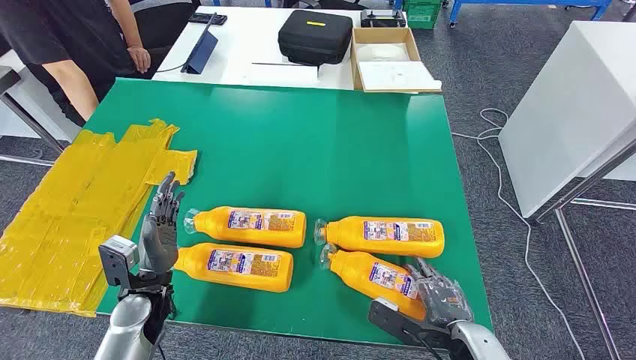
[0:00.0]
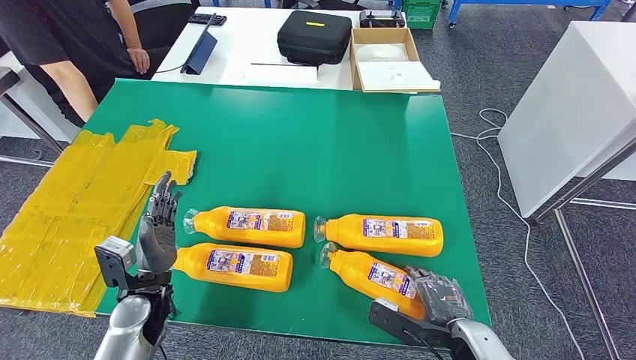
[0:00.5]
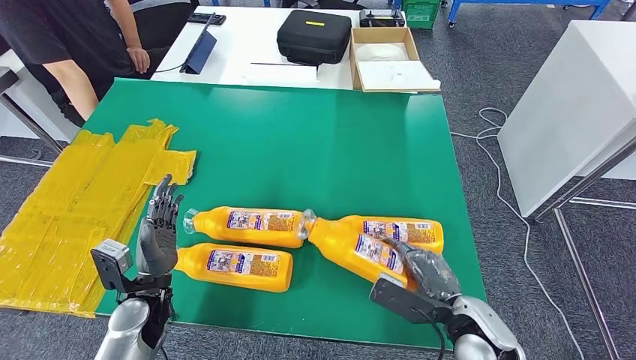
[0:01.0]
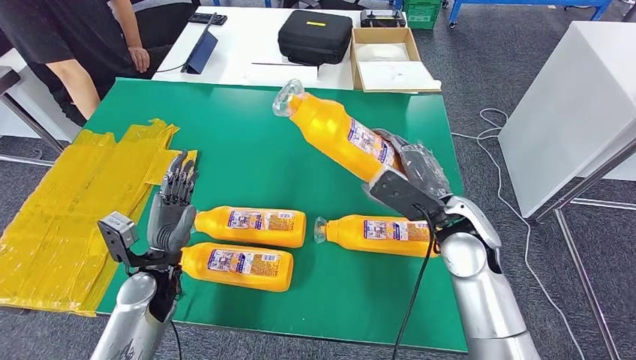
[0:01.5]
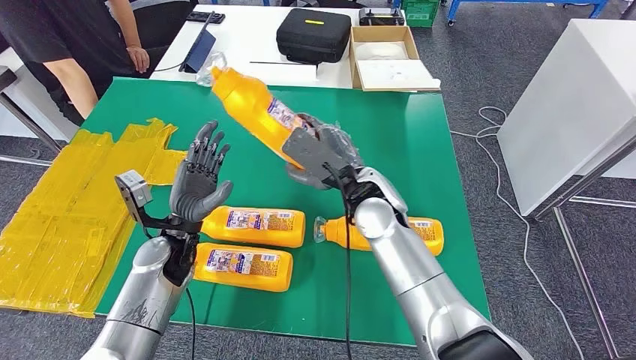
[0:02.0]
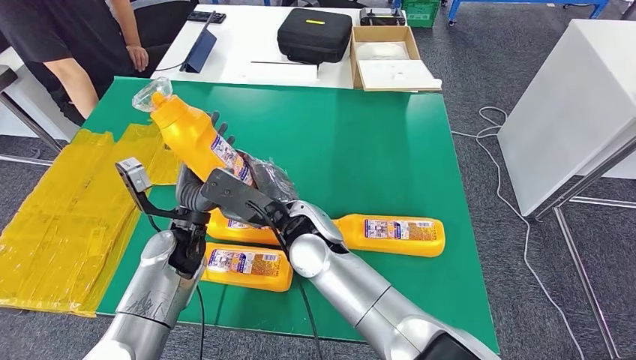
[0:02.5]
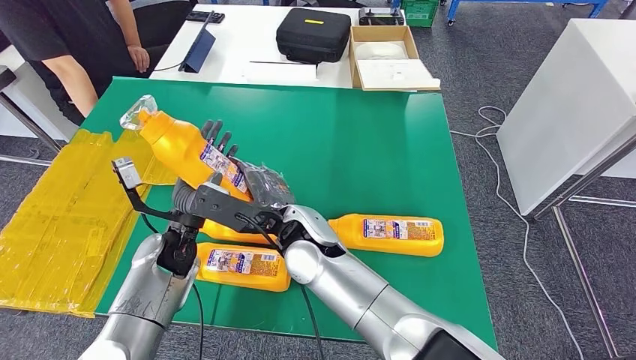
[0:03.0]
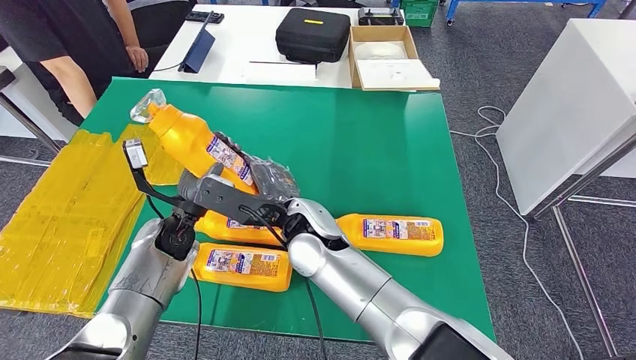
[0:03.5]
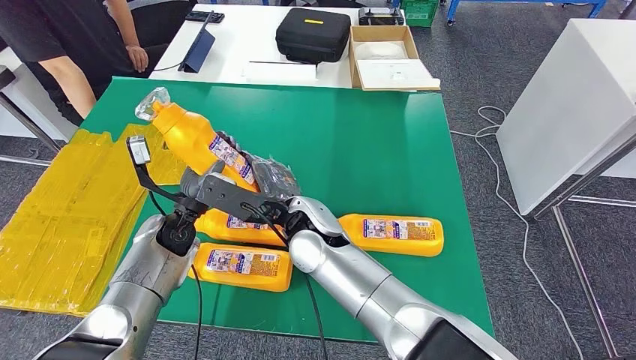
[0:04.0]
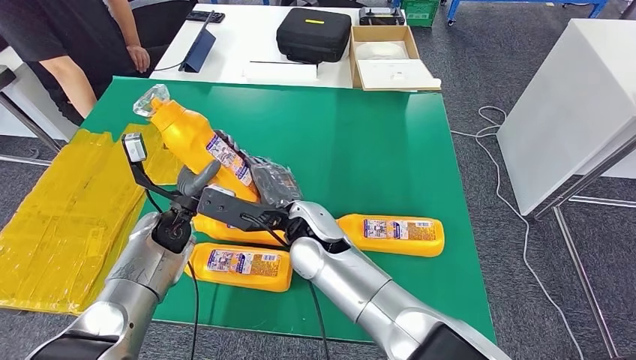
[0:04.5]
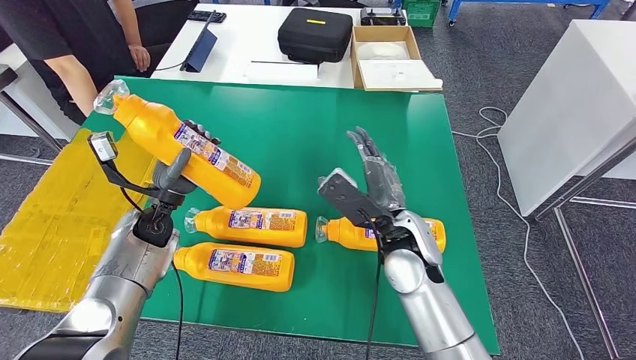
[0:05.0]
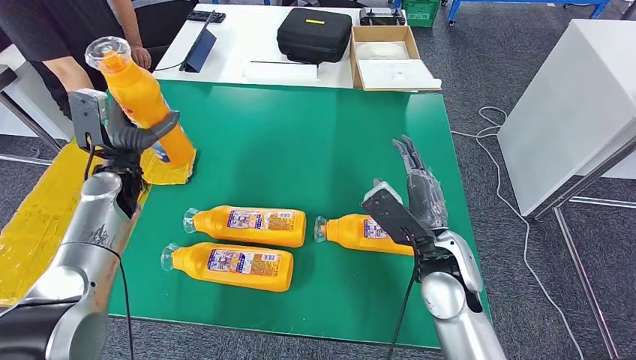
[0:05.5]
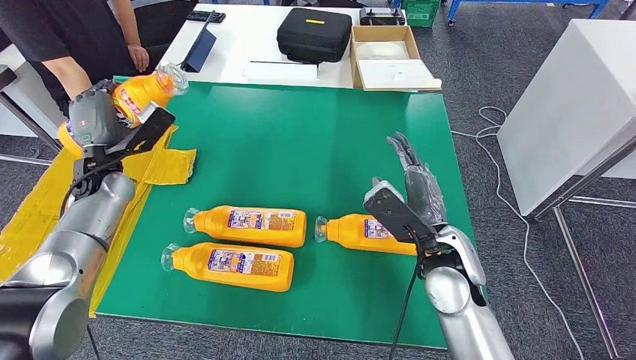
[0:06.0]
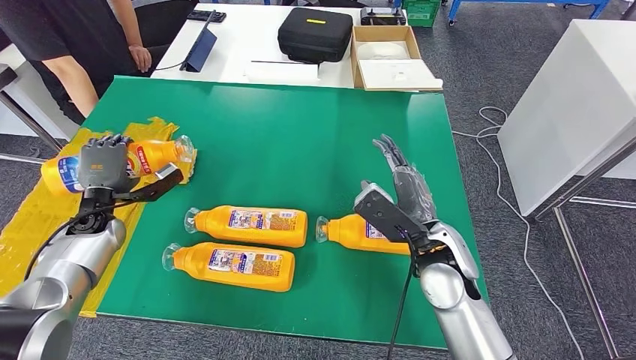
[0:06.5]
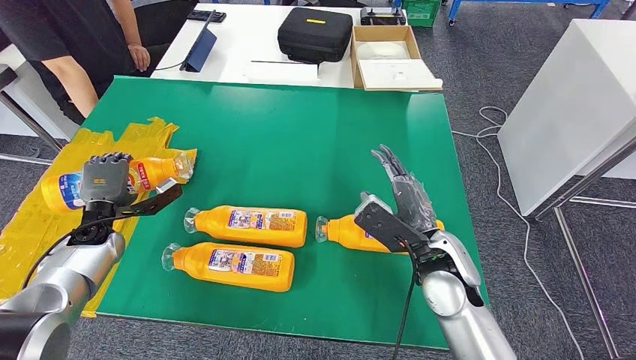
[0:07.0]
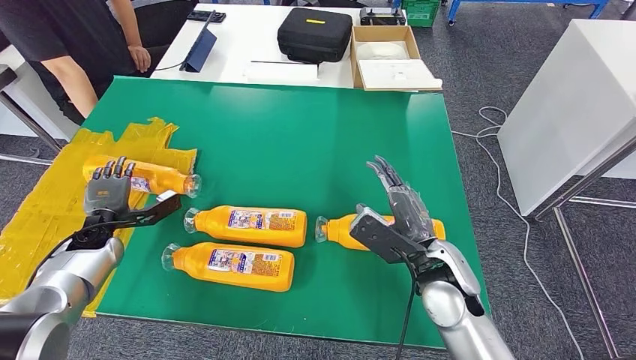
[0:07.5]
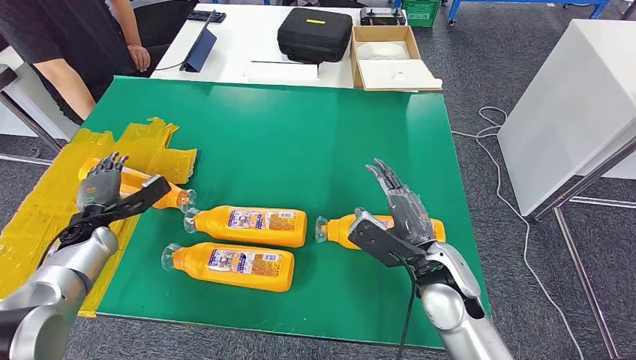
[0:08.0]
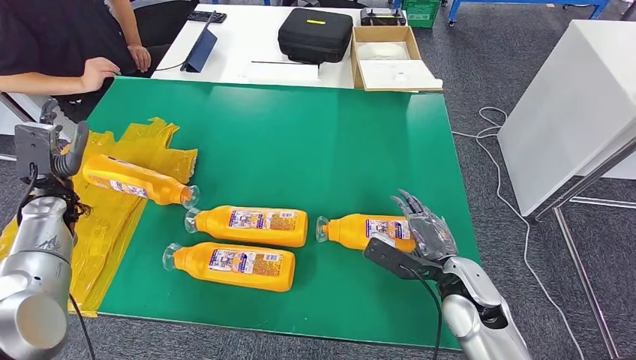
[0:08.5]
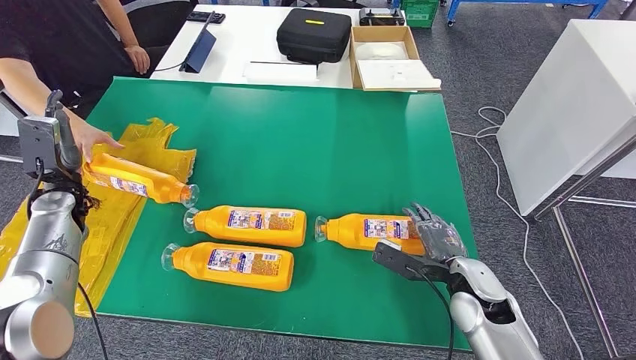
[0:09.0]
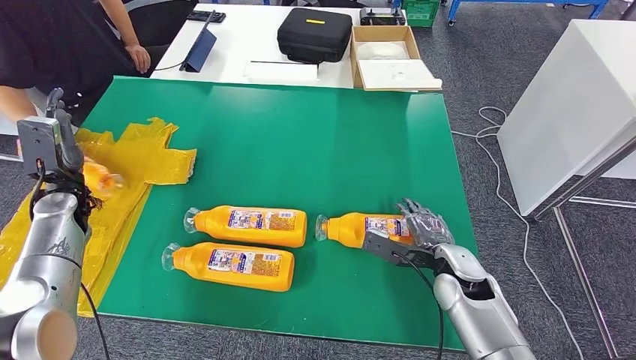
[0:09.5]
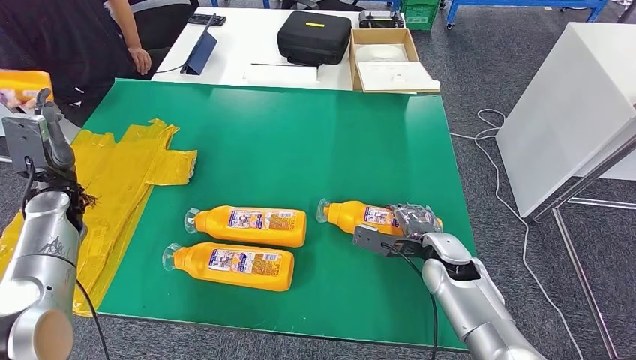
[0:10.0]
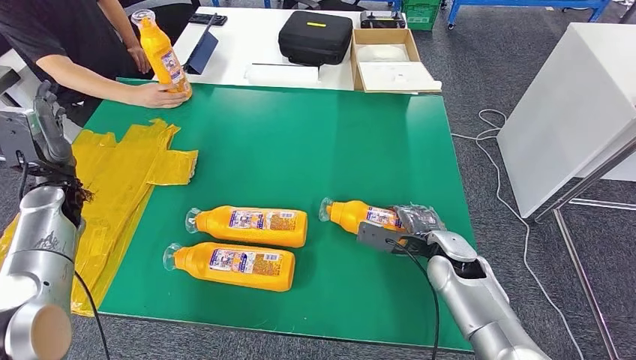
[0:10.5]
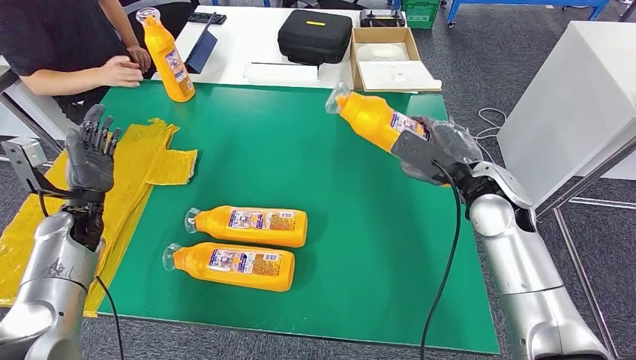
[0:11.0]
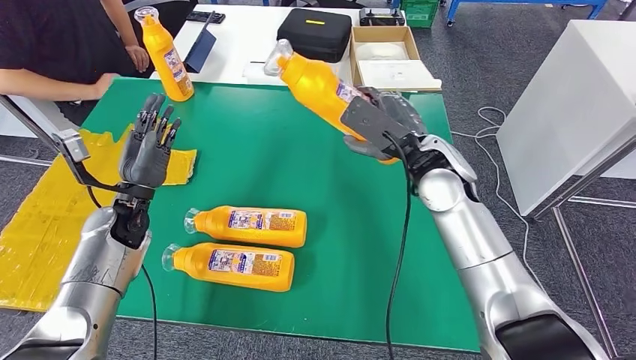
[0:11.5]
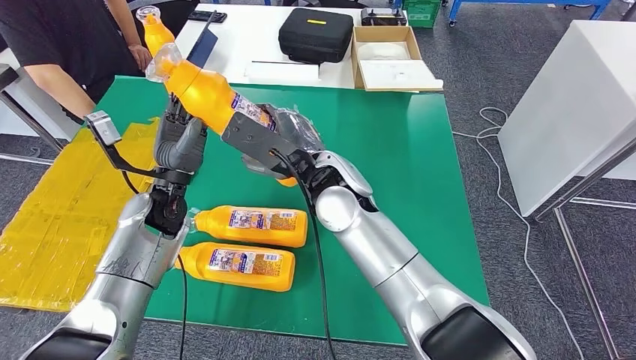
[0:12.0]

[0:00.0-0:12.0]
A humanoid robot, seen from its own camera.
Step, 0:00.0 to 0:04.0: Take the fast-moving consumer goods bottle from the table.
Step, 0:04.5 to 0:09.0: Flip the fast-moving consumer goods bottle to the front side.
0:06.0 to 0:08.0: The left hand moves downward, backward and to the left, some 15 cm.

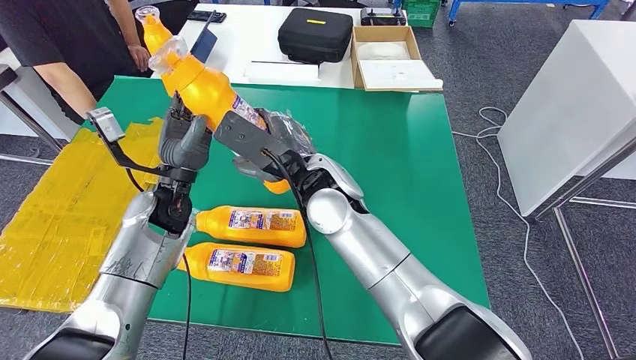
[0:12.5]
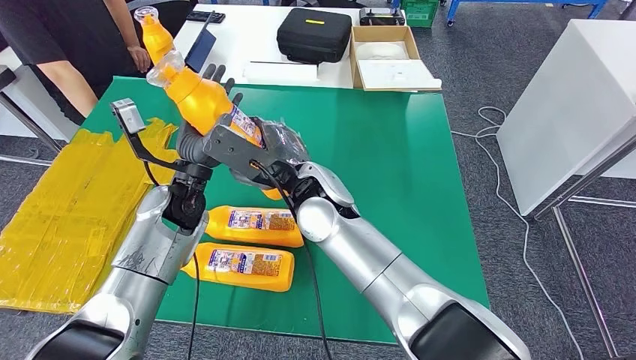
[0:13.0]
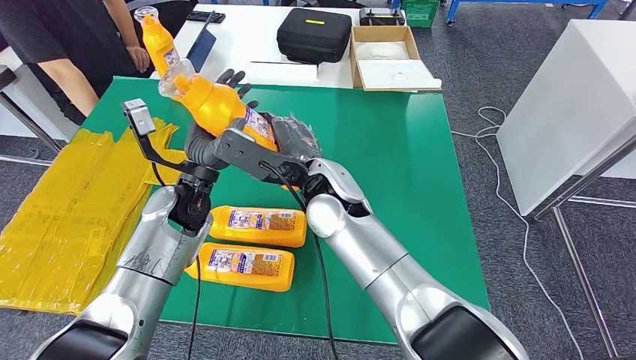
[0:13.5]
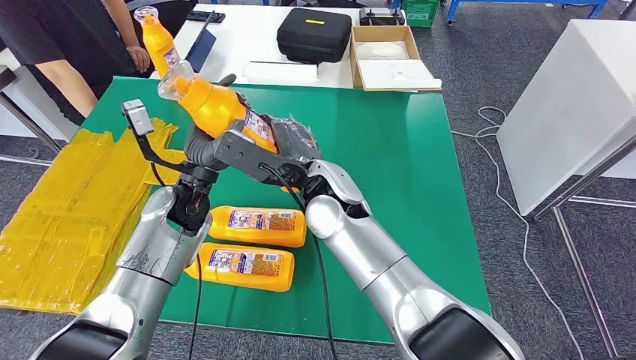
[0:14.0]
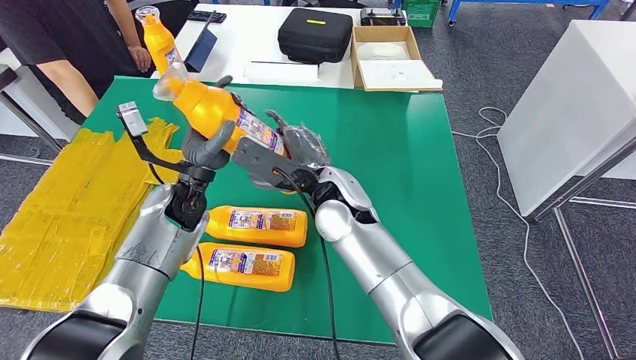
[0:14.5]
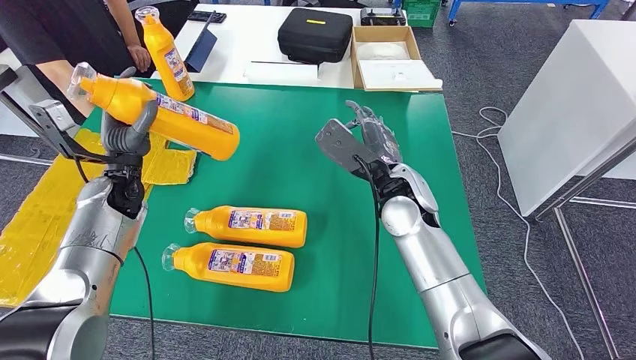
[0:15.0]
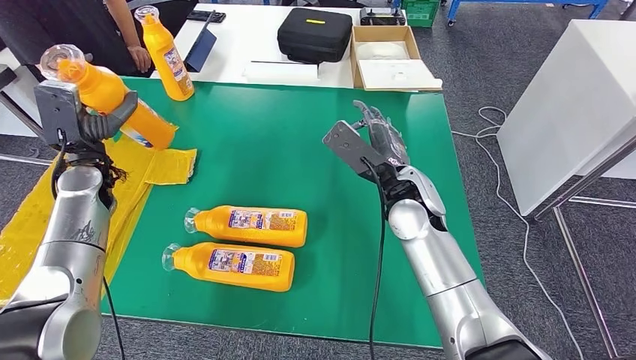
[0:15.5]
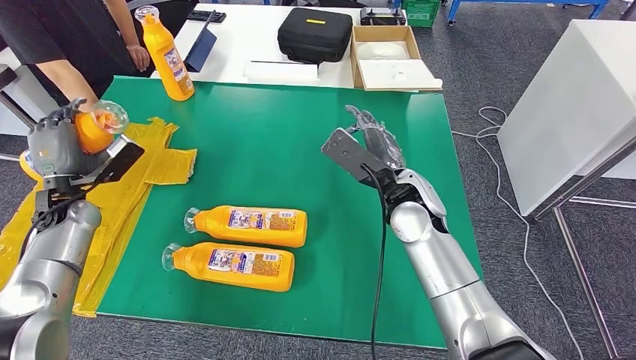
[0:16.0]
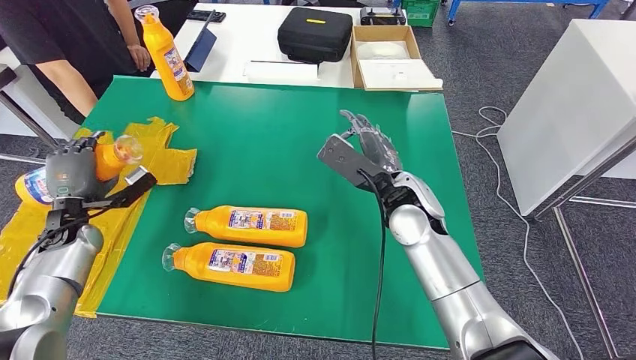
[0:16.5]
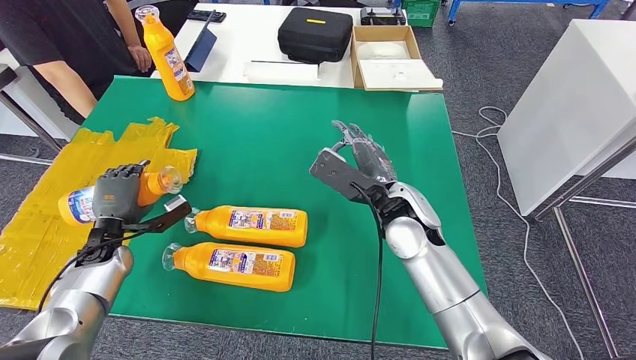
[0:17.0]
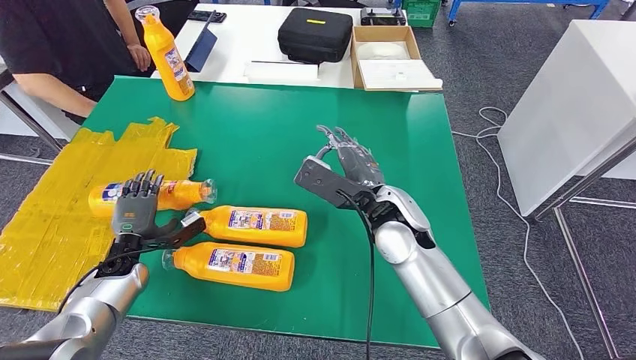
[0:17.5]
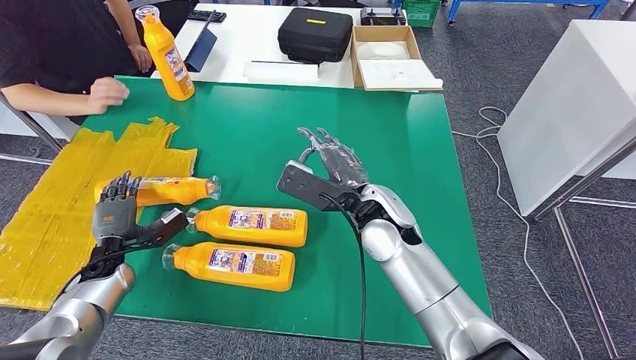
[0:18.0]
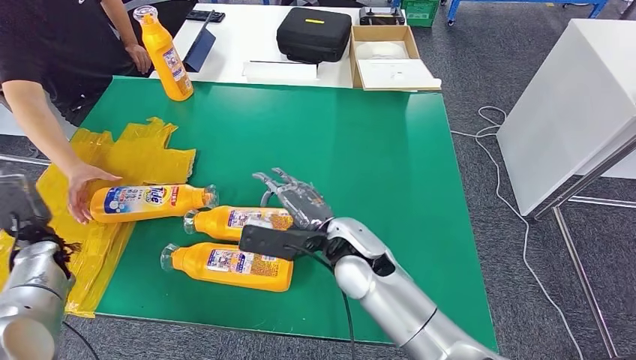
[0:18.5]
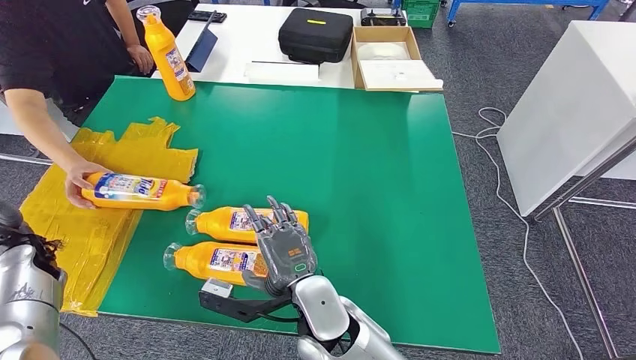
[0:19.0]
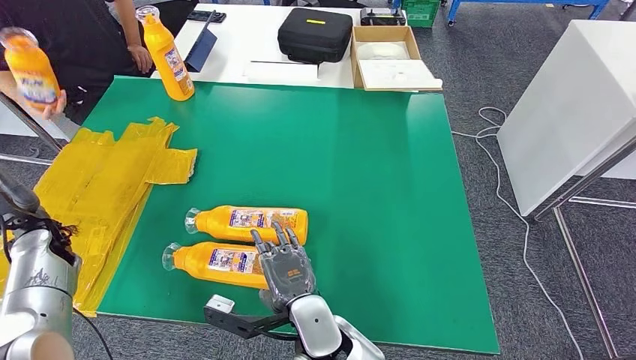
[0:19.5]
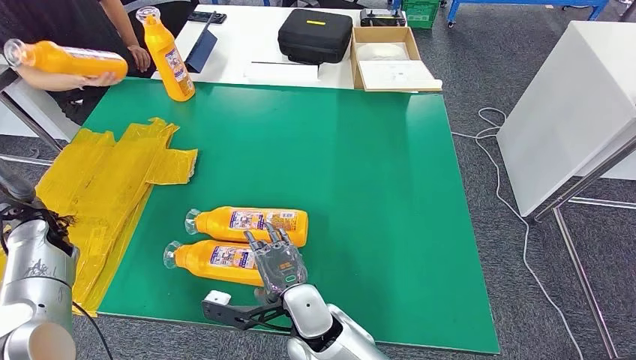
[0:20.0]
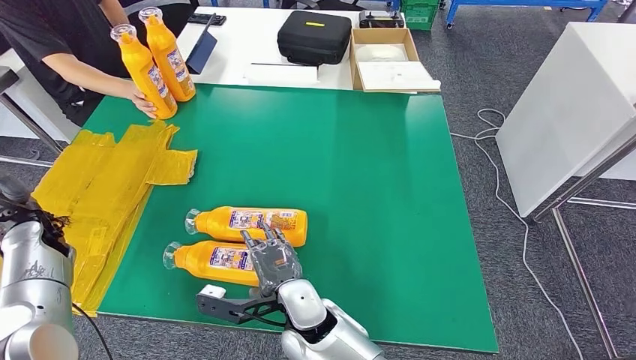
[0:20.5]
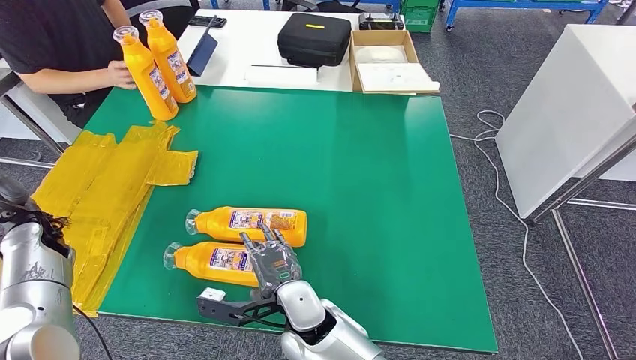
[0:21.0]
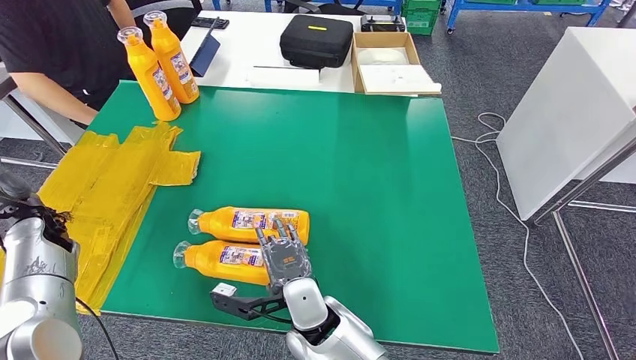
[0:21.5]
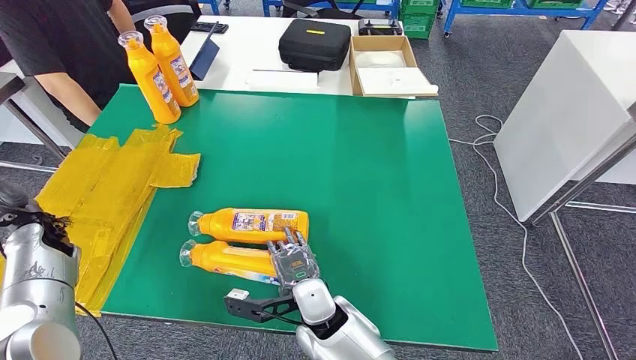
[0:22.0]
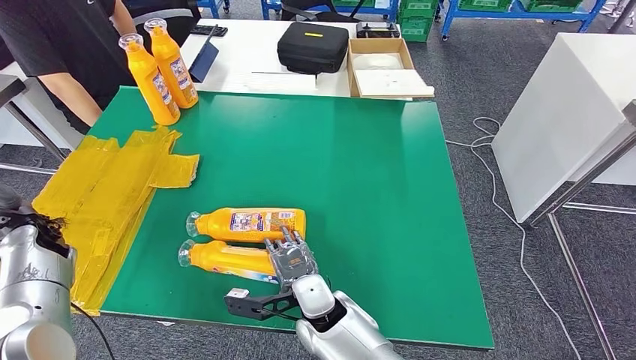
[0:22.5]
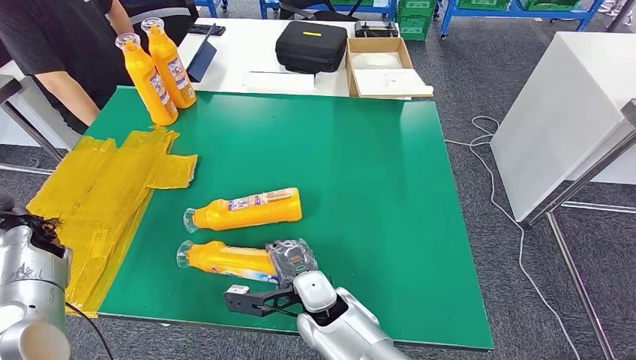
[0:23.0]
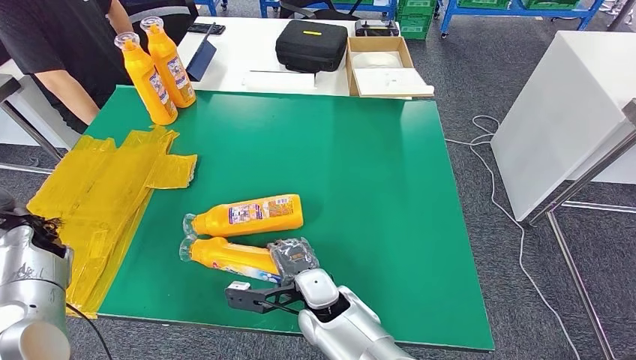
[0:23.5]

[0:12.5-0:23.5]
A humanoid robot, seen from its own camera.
Step, 0:12.5 to 0:15.0: Pick up the fast-moving consumer goods bottle from the table.
Step, 0:15.5 to 0:19.5: Flip the fast-moving consumer goods bottle to the front side.
0:12.5 to 0:14.5: The right hand shifts by roughly 5 cm.
